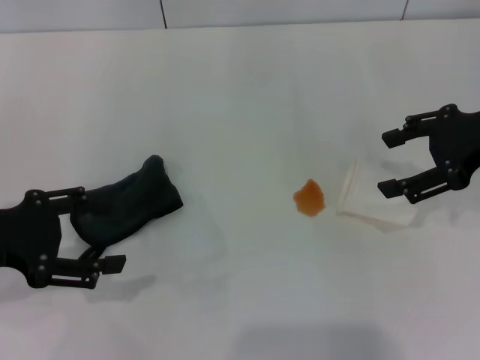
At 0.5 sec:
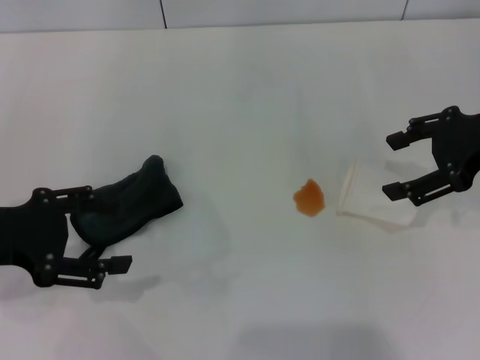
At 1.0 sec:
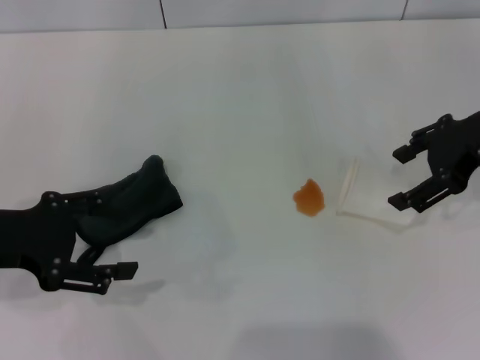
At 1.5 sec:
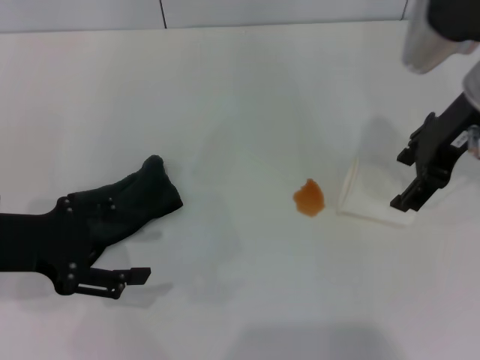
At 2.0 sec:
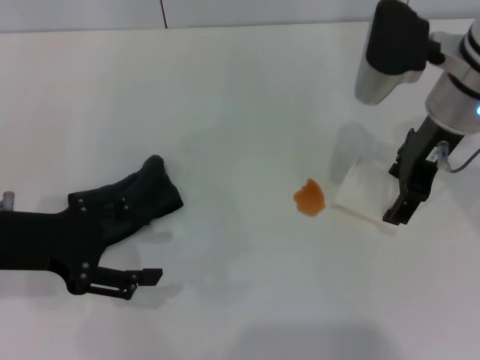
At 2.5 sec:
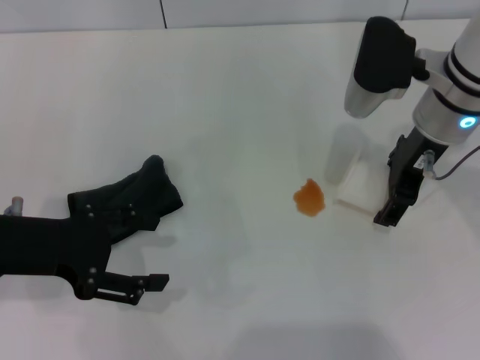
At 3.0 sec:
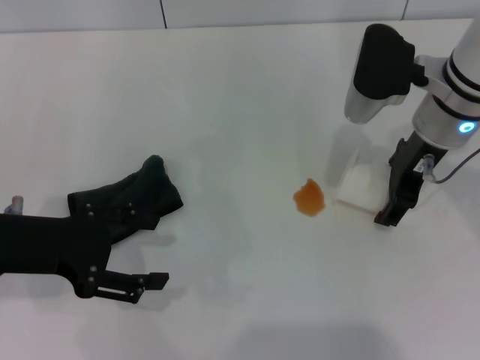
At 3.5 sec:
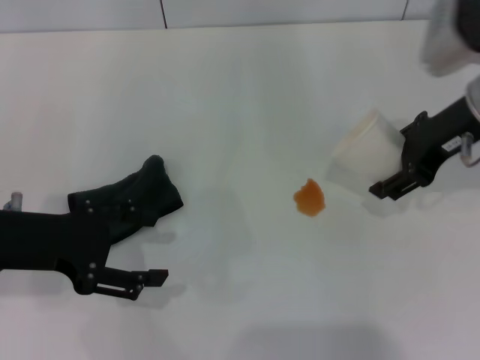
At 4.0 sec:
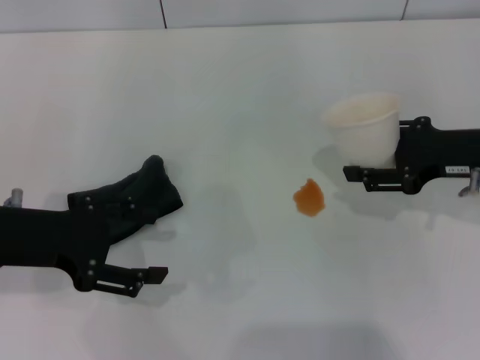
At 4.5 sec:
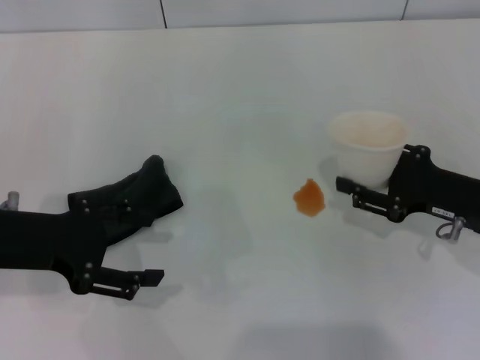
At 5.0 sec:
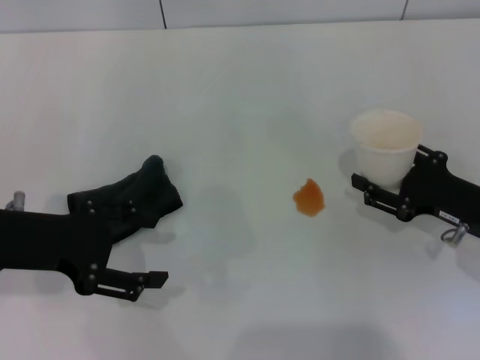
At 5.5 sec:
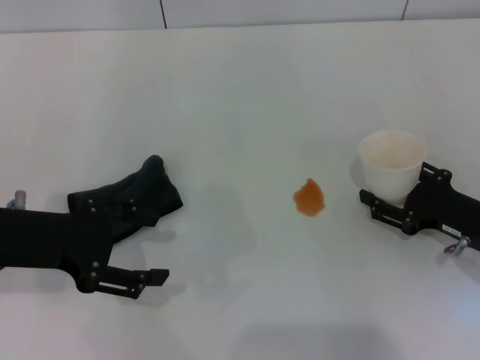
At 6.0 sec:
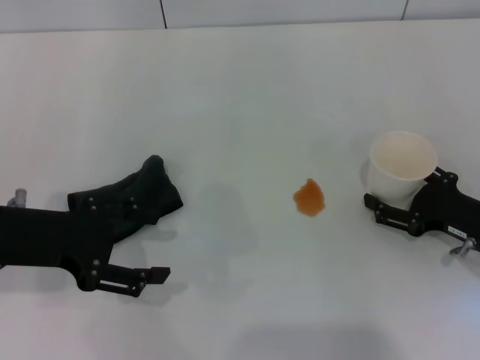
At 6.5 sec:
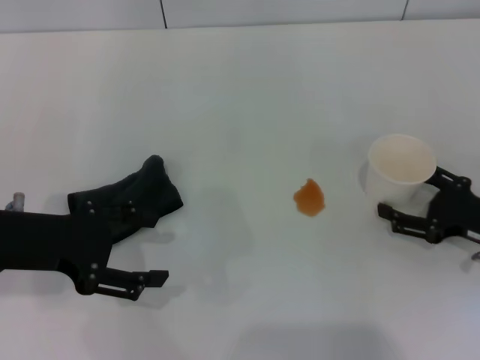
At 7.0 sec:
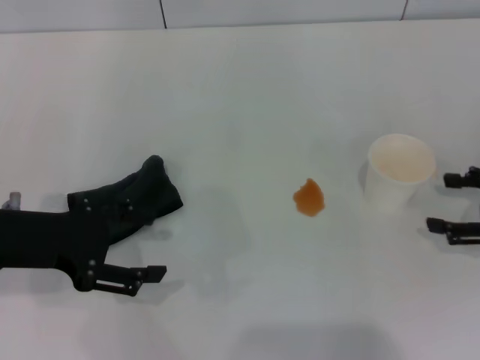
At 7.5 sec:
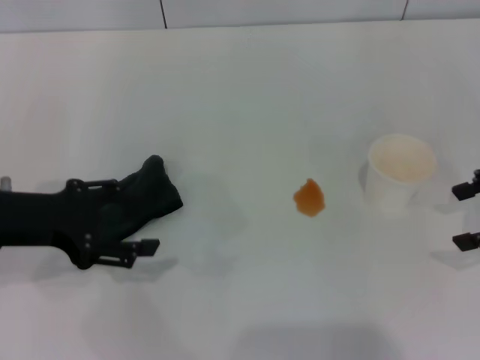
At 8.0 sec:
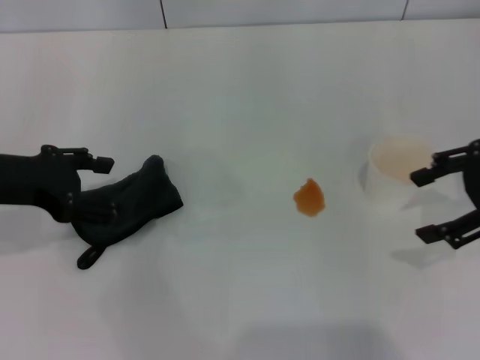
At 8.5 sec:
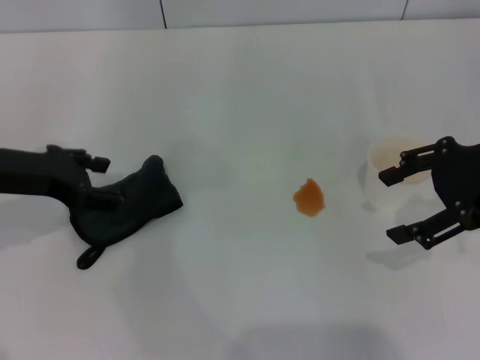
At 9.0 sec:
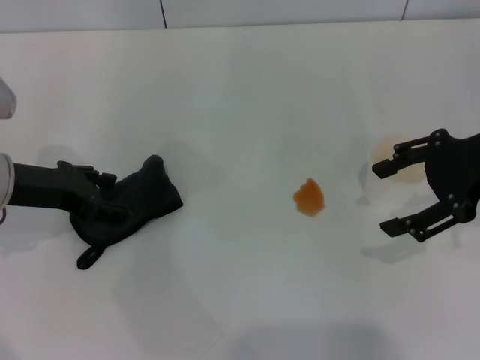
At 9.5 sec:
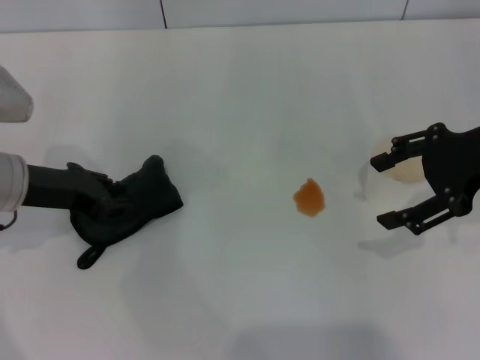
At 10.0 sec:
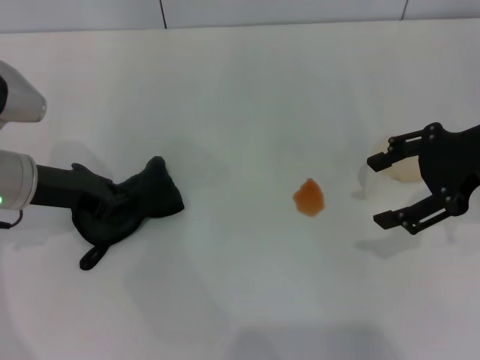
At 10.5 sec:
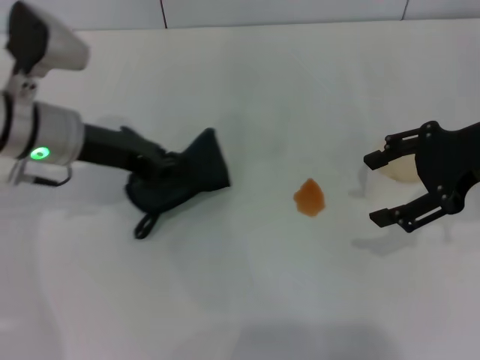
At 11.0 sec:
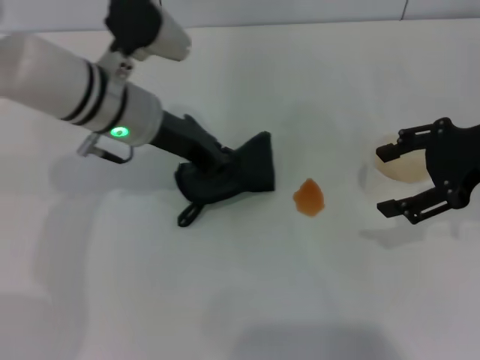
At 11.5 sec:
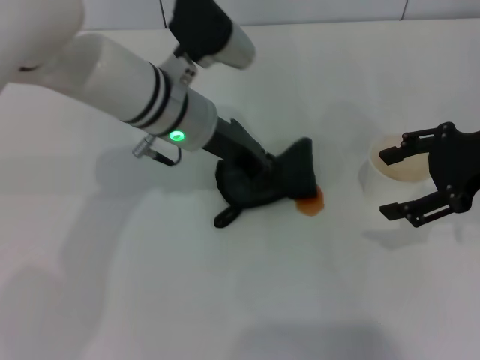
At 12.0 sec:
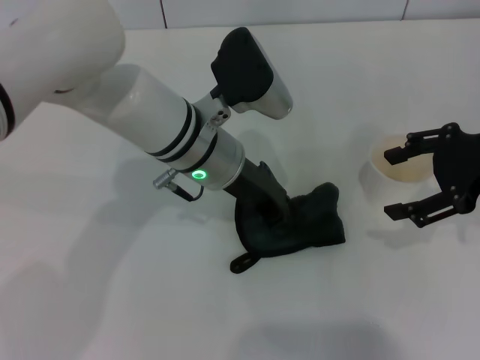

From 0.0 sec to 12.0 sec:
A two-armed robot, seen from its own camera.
Step, from 0.0 sec to 2.5 sec: Grasp the paper cup with the right gripper.
Step, from 3.0 sec to 6.5 sec: Stand the paper cup upright with the right gripper.
Step, from 7.0 sec to 9.5 sec: Grasp the rag with the left gripper.
From 0.0 sec to 2.0 sec: The right gripper goes approximately 10 cm to the left.
From 2.0 sec to 4.0 sec: The right gripper moves to the right, downward and backward, about 15 cm, and closes up.
From 4.0 sec to 6.0 sec: The right gripper goes about 15 cm downward and backward, and opens up.
From 6.0 sec to 8.0 sec: The right gripper heads upward, covering approximately 20 cm.
From 8.0 sec to 10.0 sec: The left gripper goes about 5 cm downward, and closes up.
From 10.0 sec to 12.0 sec: The left gripper heads to the right, covering roughly 20 cm.

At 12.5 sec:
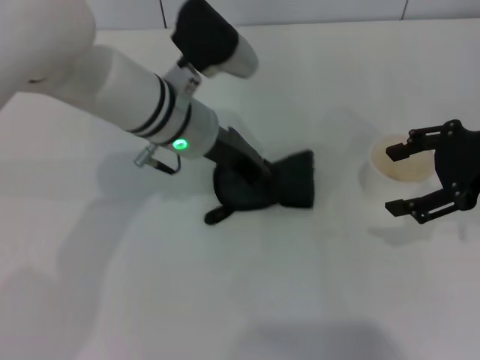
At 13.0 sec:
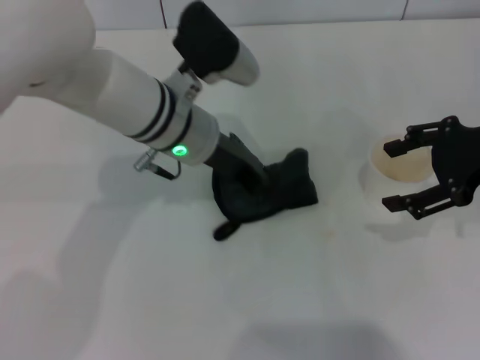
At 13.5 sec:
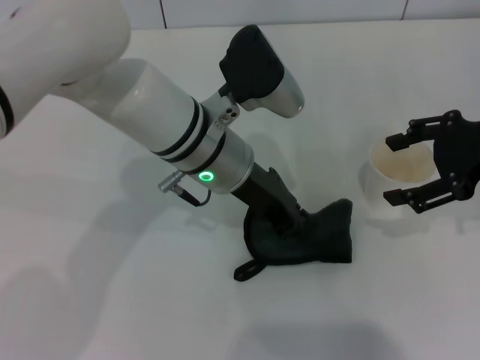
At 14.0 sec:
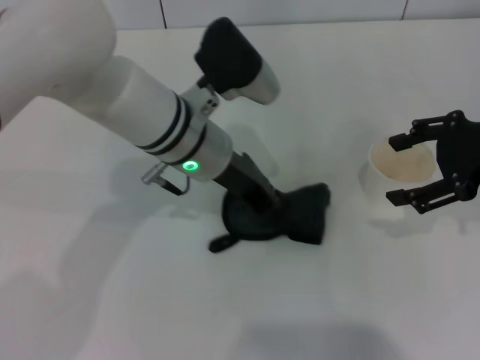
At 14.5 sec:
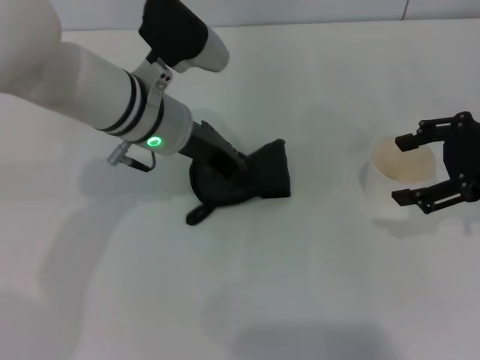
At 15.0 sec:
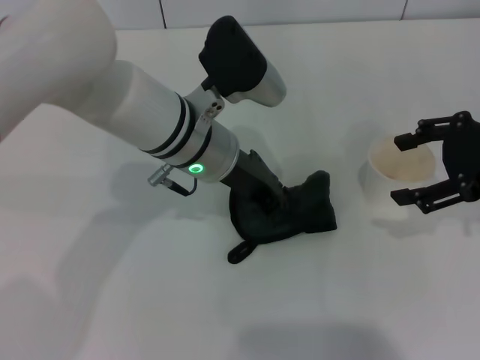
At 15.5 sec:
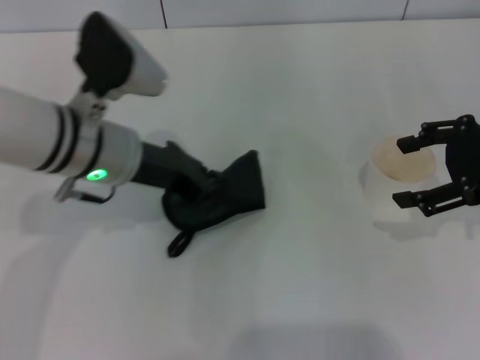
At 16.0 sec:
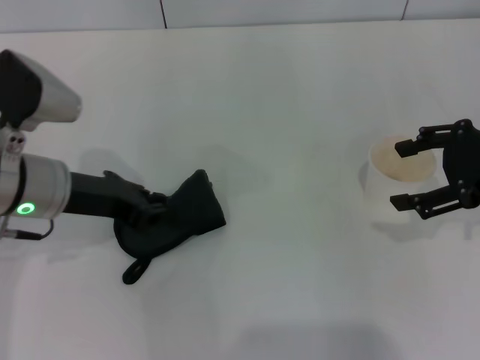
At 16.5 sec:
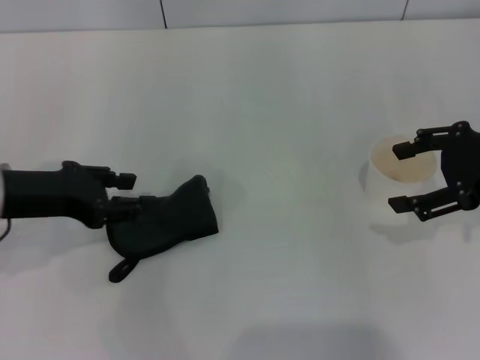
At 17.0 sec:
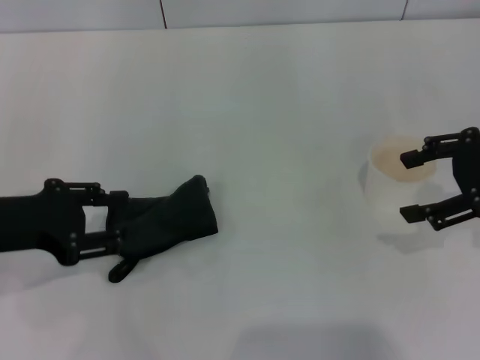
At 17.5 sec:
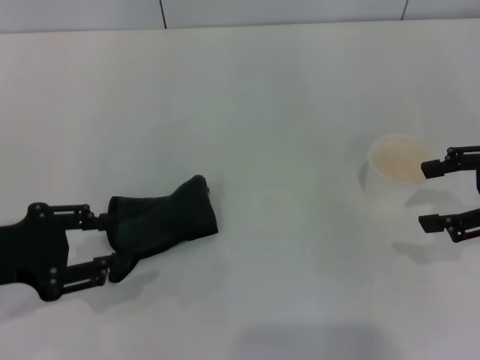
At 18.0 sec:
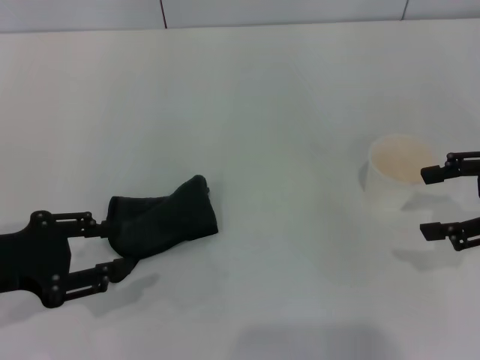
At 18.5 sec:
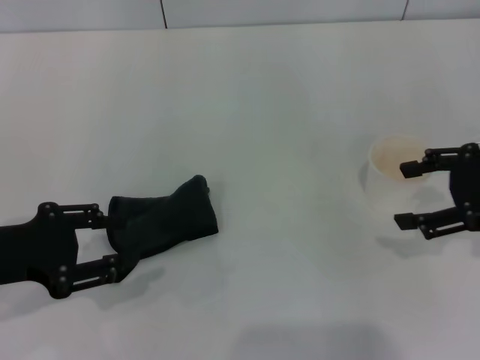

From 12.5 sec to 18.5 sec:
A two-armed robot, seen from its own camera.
Step, from 12.5 sec to 15.0 sec: Wipe the stains off the table with the left gripper.
Step, from 15.5 sec to 16.5 sec: Place the rag on the table with the left gripper.
From 12.5 sec to 14.5 sec: There are only small adjustments of the grippers.
From 14.5 sec to 16.5 sec: The left gripper is displaced to the left and backward by some 20 cm, and opens up.
From 16.5 sec to 18.5 sec: The left gripper travels backward by approximately 5 cm.
